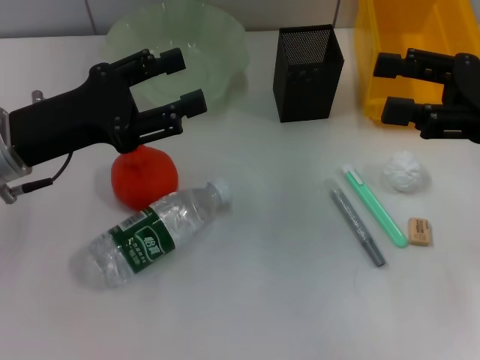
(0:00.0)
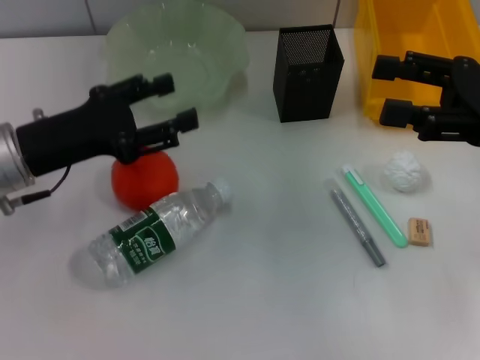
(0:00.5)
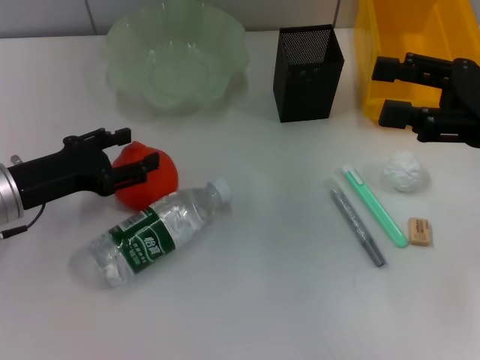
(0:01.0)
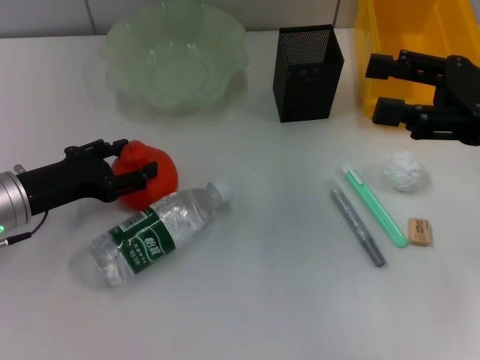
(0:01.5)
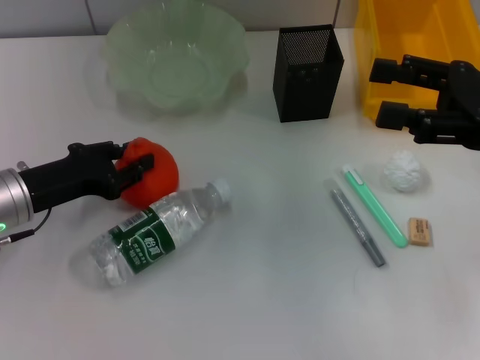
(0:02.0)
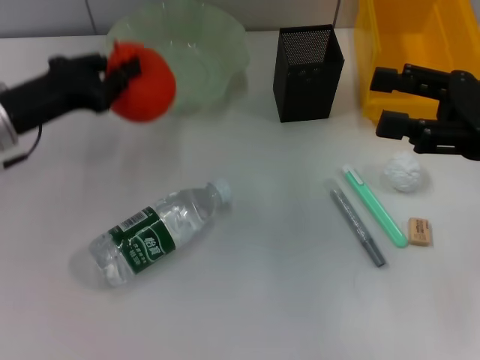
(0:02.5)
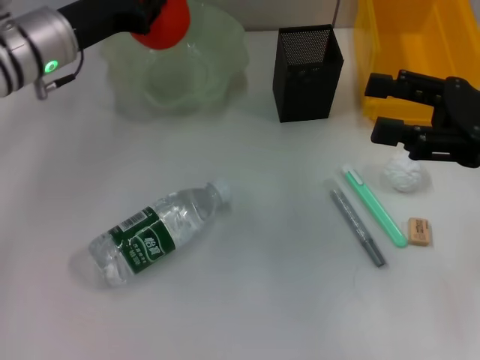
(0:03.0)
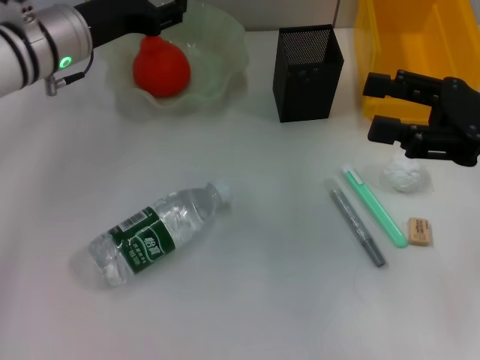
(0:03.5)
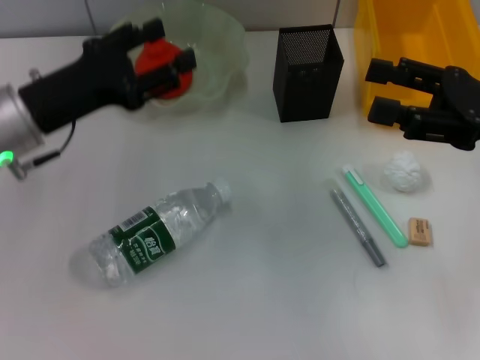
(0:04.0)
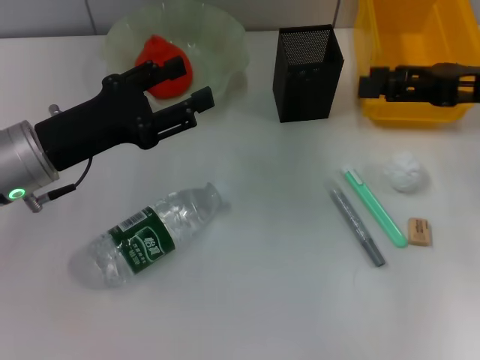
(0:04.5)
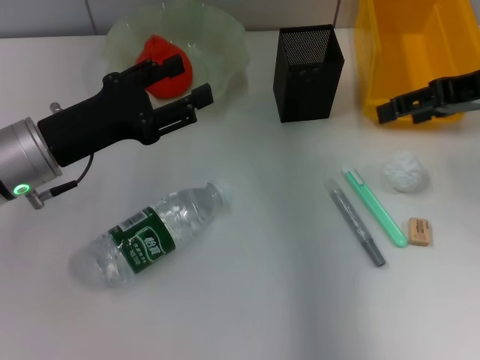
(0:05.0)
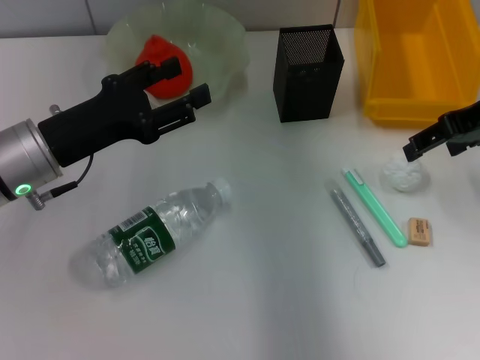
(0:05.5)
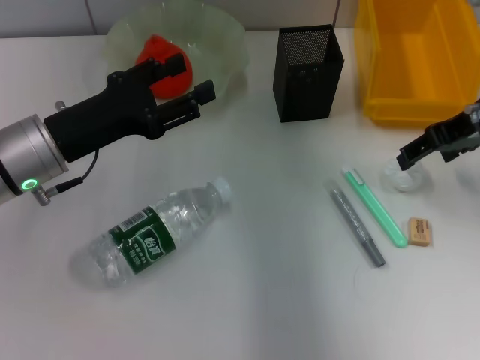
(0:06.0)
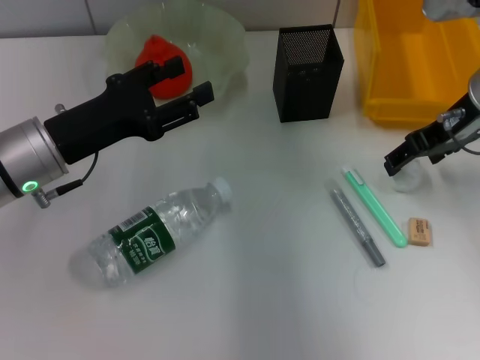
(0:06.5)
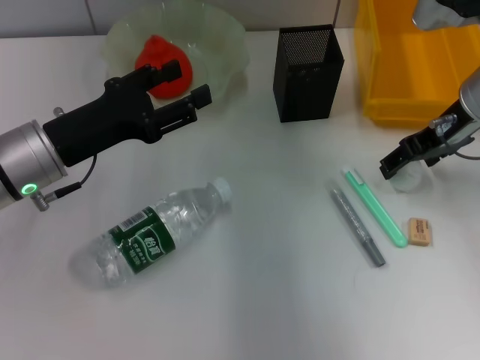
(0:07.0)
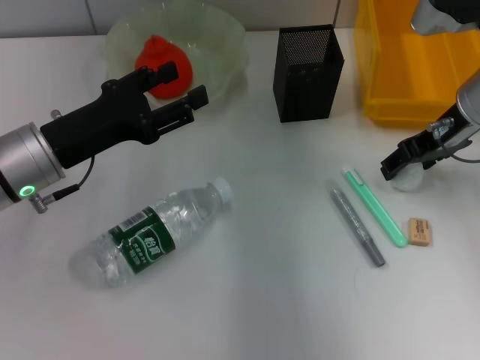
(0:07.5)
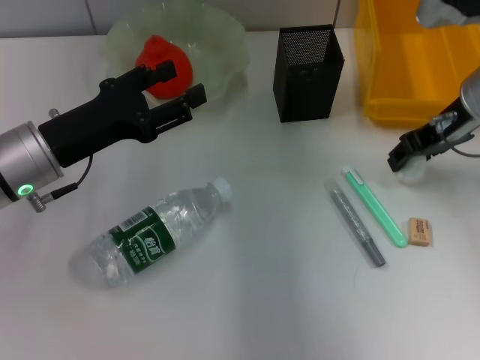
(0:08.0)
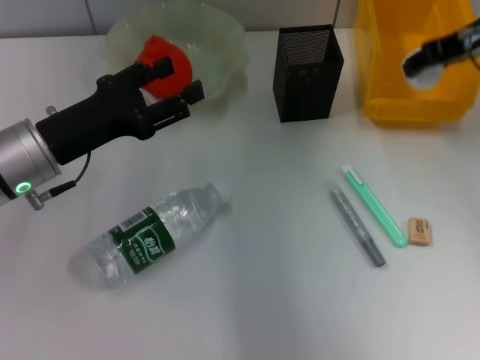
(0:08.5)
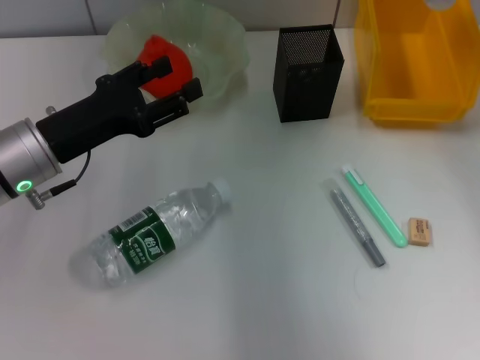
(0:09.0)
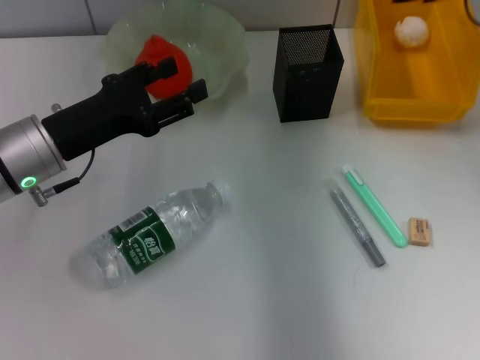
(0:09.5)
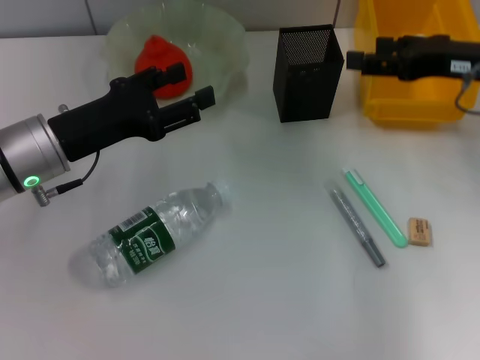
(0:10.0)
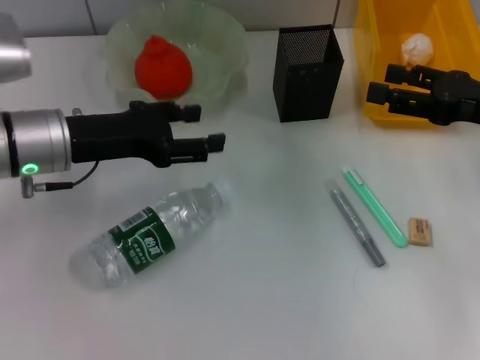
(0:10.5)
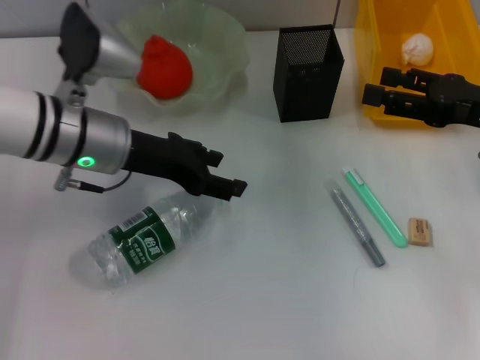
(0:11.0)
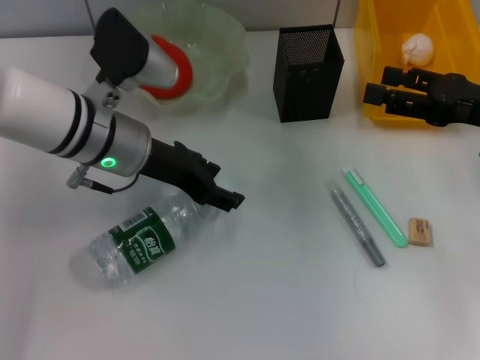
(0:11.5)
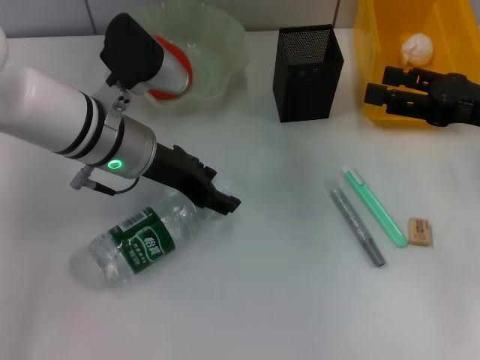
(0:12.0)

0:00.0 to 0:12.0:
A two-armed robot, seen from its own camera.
Step, 0:00.0 to 0:01.5: Grab the orange with the left hand.
Step, 0:02.0 to 0:03.5: Place the orange into the fruit bowl with the left hand.
Step, 0:04.0 to 0:07.5: Grab the paper ball with the right hand.
Step, 0:08.0 to 0:09.5: Place the paper ball into the trash can with the right hand.
0:00.0 to 0:02.0: The left gripper travels downward by some 5 cm, and closes up.
0:02.0 to 0:04.0: The left gripper is displaced upward by about 5 cm, reaches some 15 cm forward, then returns, and opens its fingers.
0:04.0 to 0:06.0: The right gripper heads forward, covering approximately 10 cm.
0:06.0 to 0:08.0: The right gripper closes its fingers.
0:08.0 to 0:10.0: The right gripper moves roughly 10 cm upward and comes back.
0:10.0 to 0:12.0: The right gripper changes place by about 5 cm, while the left gripper heads to the right, covering roughly 10 cm.

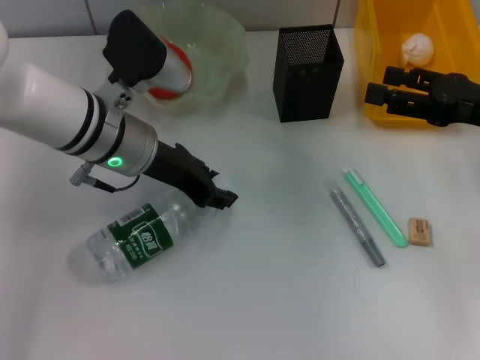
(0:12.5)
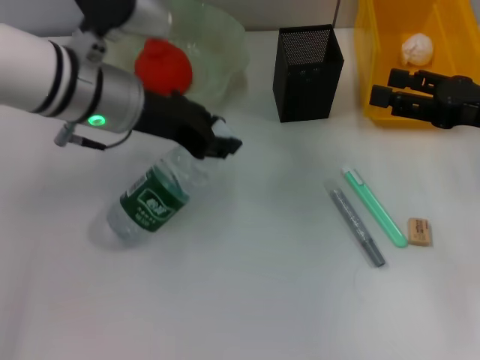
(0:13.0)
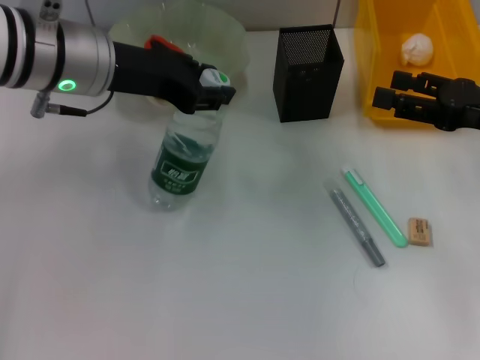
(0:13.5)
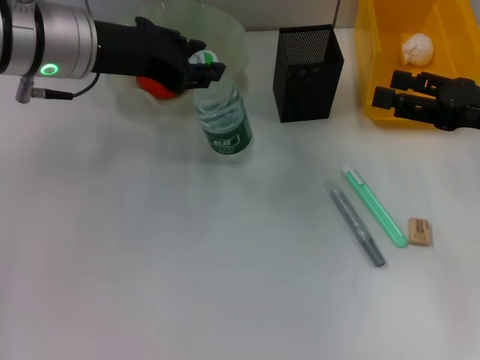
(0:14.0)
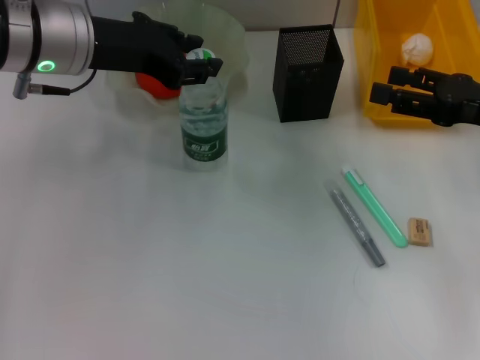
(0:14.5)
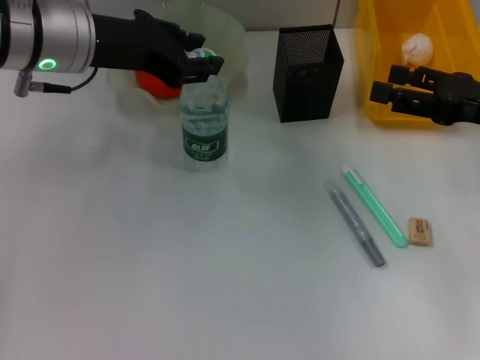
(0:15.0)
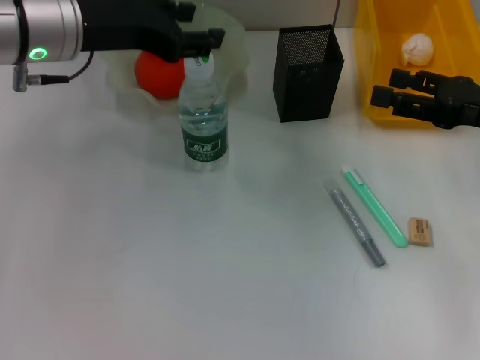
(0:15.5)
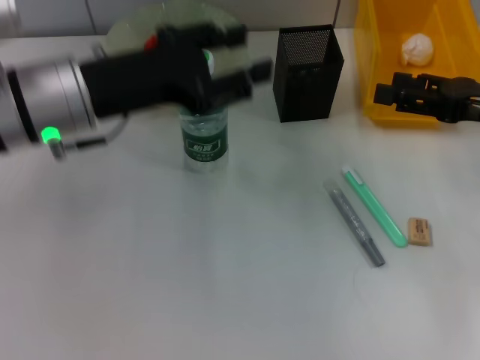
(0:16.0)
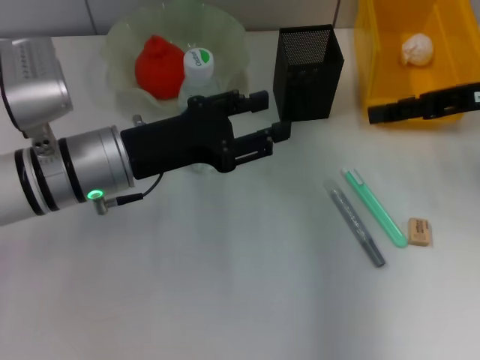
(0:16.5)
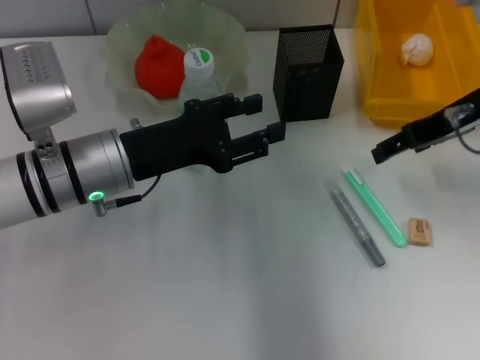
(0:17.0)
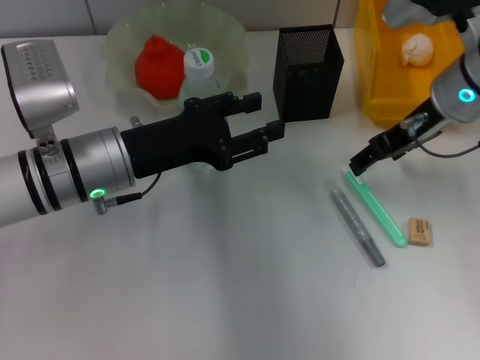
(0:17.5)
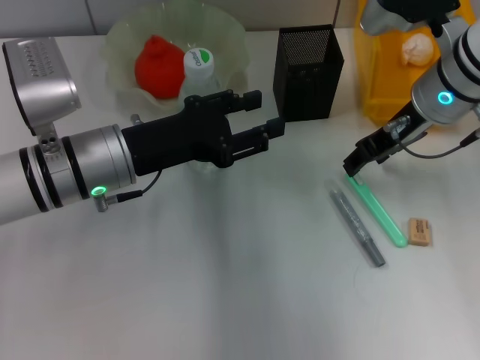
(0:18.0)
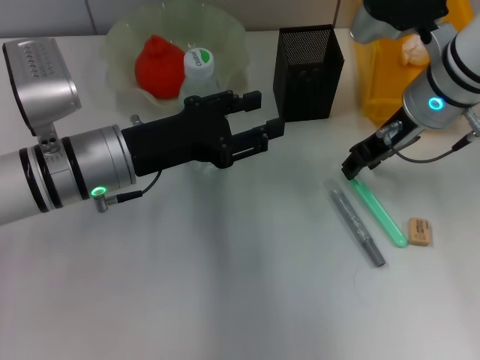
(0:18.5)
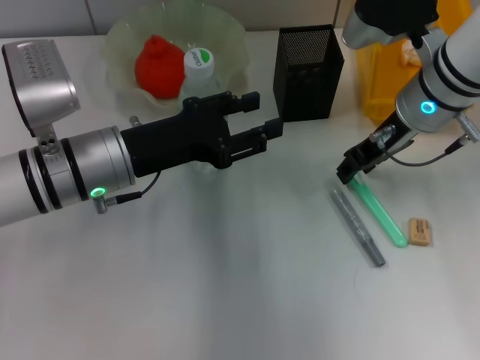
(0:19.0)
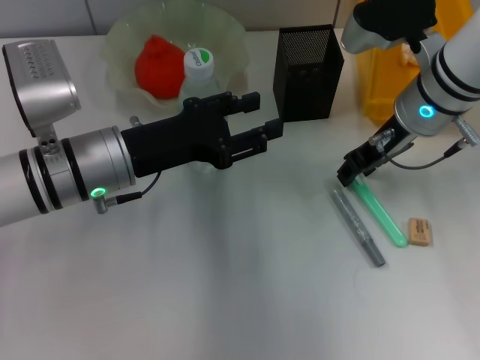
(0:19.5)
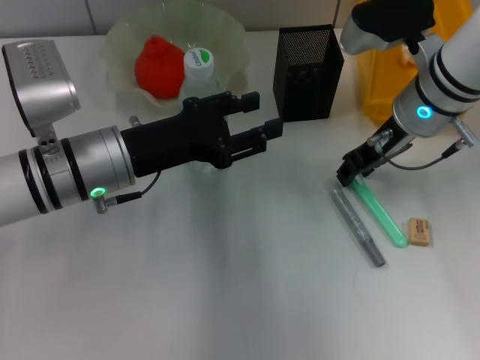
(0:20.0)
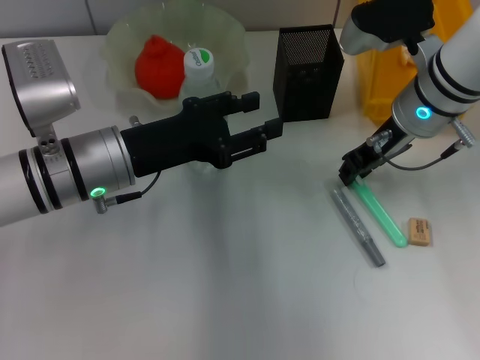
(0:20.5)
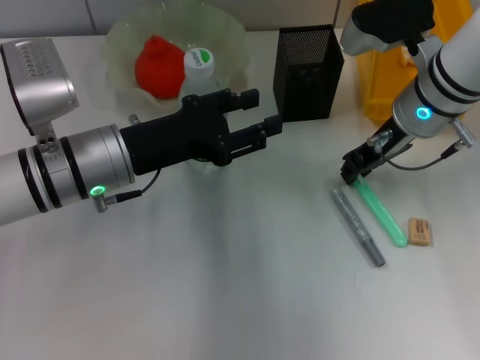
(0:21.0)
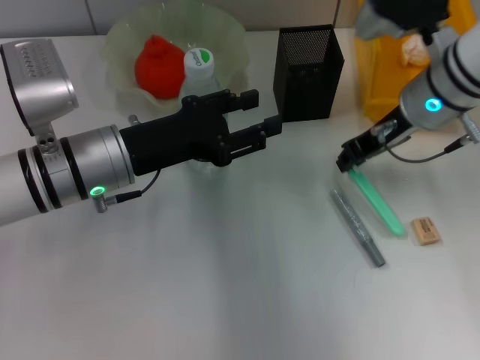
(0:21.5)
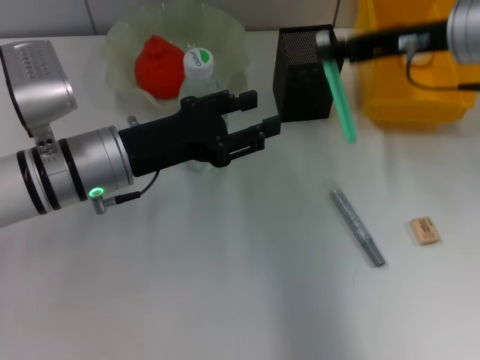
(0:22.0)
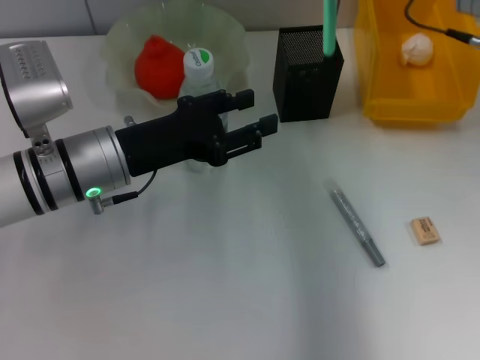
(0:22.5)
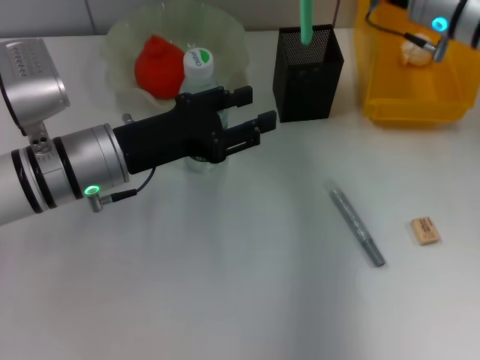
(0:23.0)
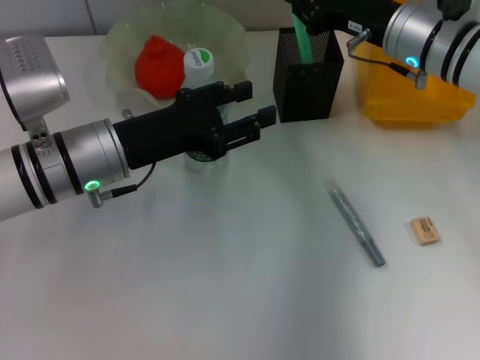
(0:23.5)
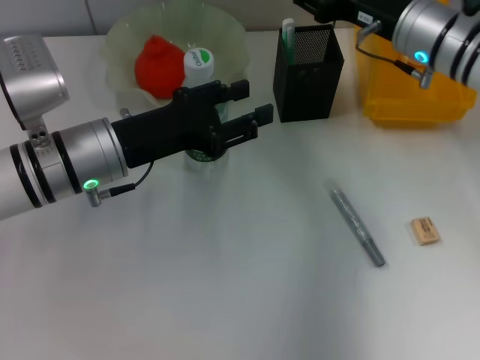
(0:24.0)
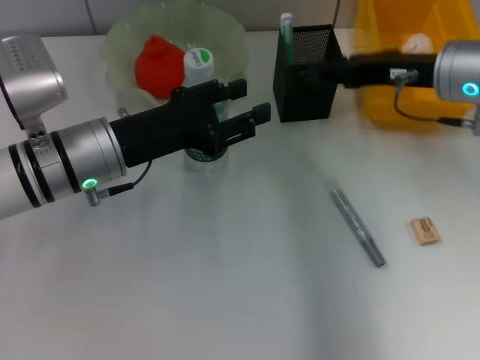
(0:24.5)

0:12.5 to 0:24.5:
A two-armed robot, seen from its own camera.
Step, 0:12.5 to 0:15.0: Place the water bottle on the table with the left hand.
Step, 0:15.5 to 0:20.5: Grab the blue utility knife with the right hand.
Step, 0:21.0 to 0:23.5: Place the blue utility knife into the pen holder with the right hand.
0:12.5 to 0:14.5: The left gripper is displaced upward by approximately 10 cm.
0:14.5 to 0:16.5: The right gripper heads upward, covering some 5 cm. Meanwhile the left gripper heads downward and backward, covering some 10 cm.
0:16.5 to 0:18.5: The right gripper is displaced to the left by about 10 cm, and closes up.
0:18.5 to 0:20.5: There are only small adjustments of the grippers.
0:20.5 to 0:22.5: The right gripper moves upward and to the right, approximately 10 cm.
0:22.5 to 0:24.5: The right gripper moves downward, approximately 5 cm, and opens.

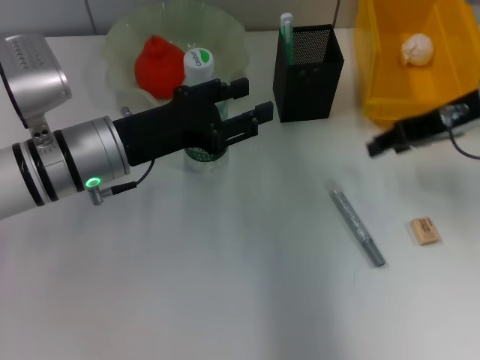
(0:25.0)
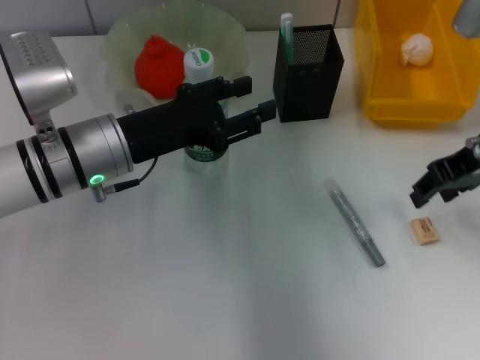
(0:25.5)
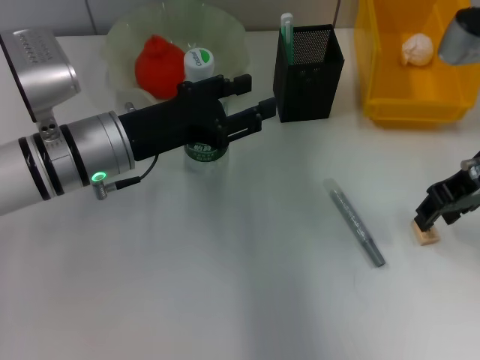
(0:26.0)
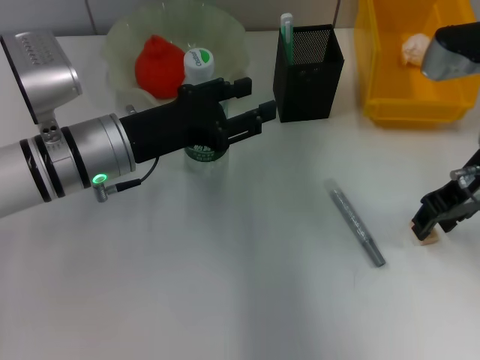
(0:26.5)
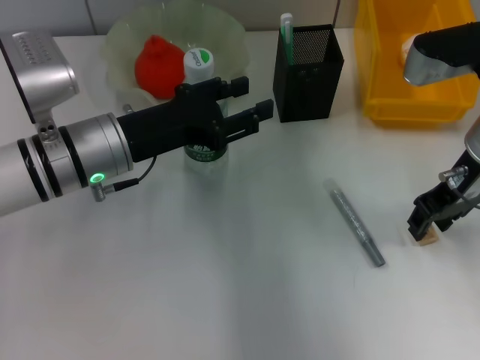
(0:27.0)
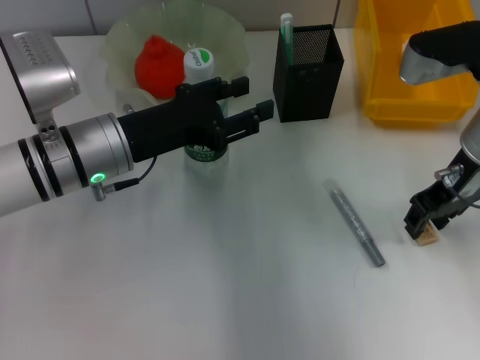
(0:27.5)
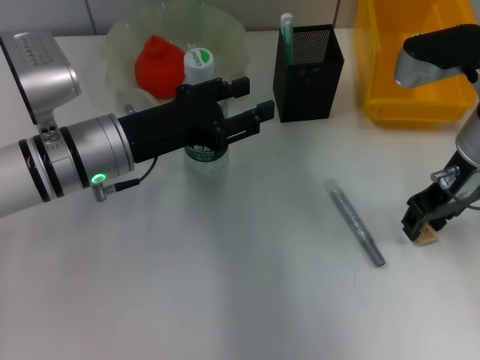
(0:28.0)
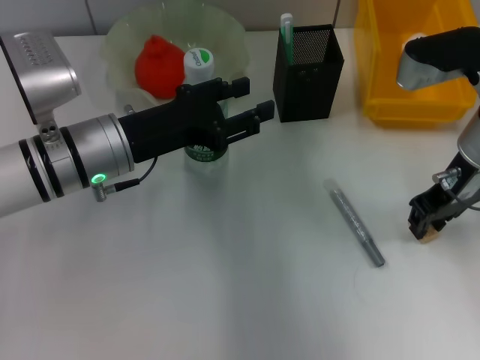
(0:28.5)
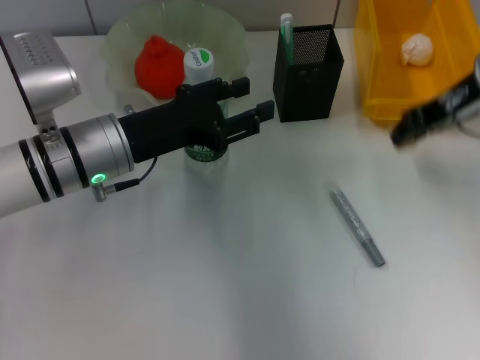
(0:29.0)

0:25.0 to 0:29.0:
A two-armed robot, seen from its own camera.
Step, 0:25.0 to 0:28.0: Grab the eraser with the right hand.
0:27.0 to 0:29.0: The right gripper is displaced upward by about 5 cm.
